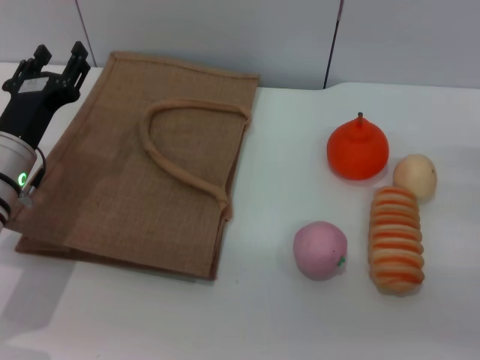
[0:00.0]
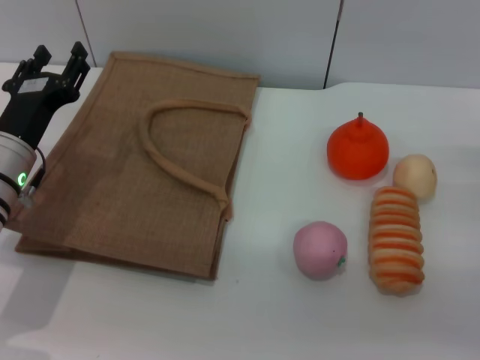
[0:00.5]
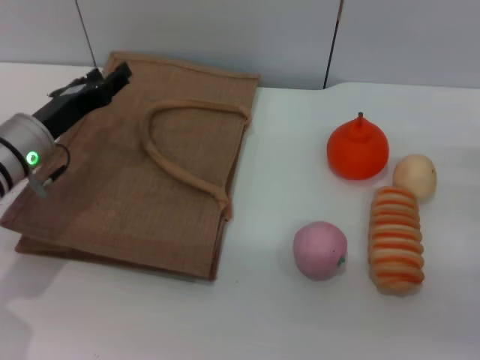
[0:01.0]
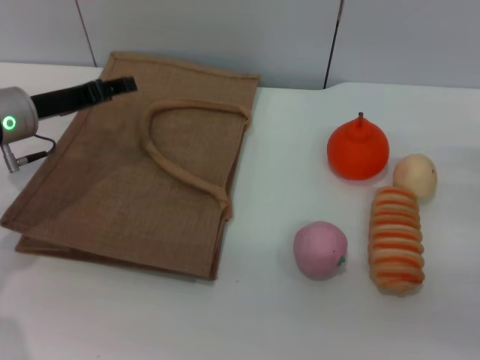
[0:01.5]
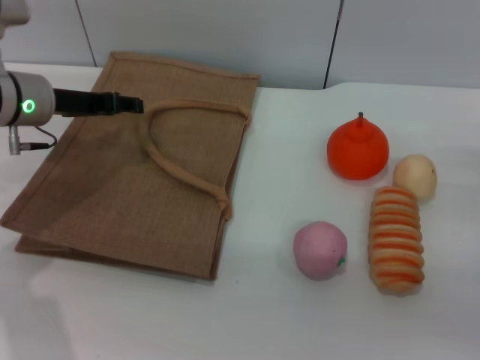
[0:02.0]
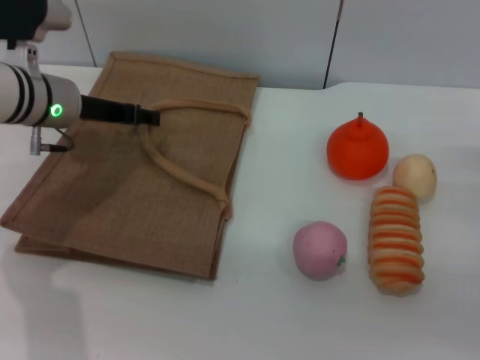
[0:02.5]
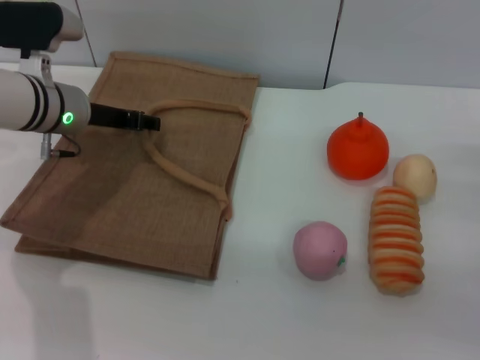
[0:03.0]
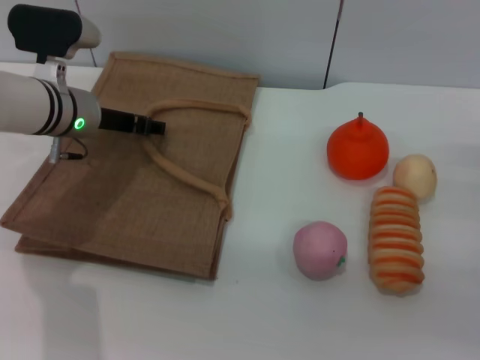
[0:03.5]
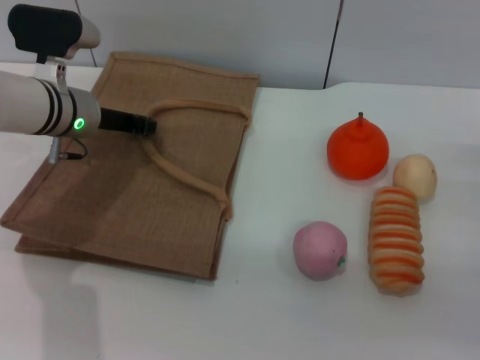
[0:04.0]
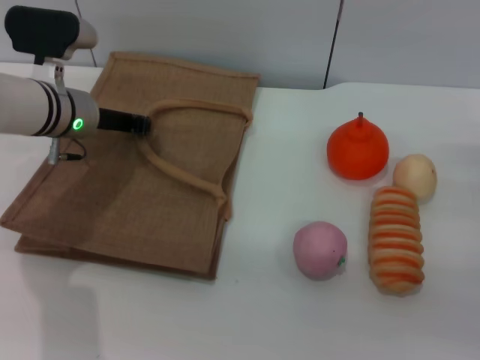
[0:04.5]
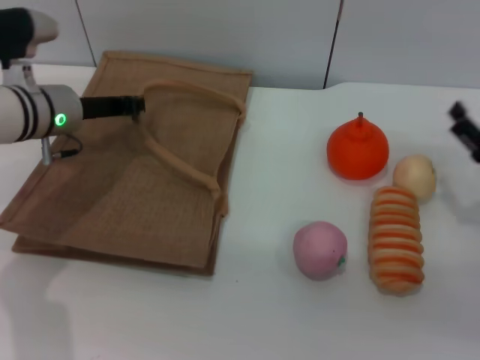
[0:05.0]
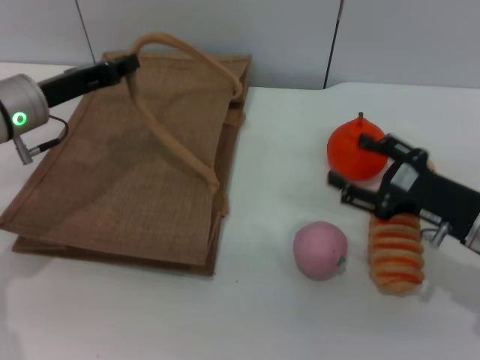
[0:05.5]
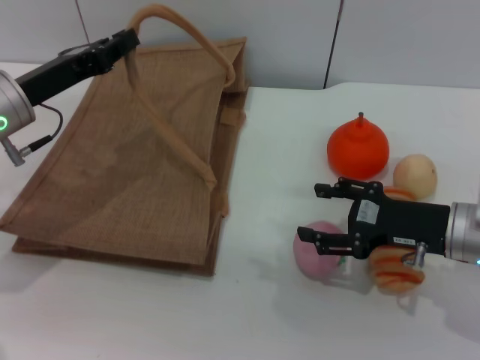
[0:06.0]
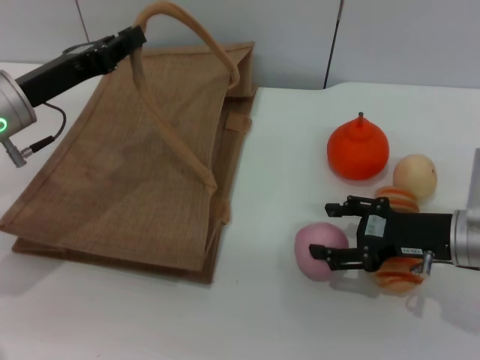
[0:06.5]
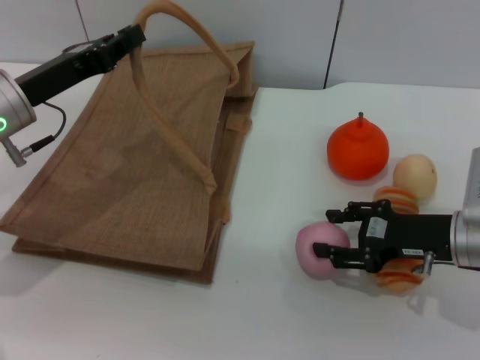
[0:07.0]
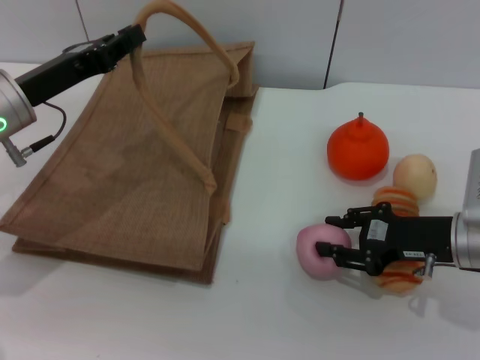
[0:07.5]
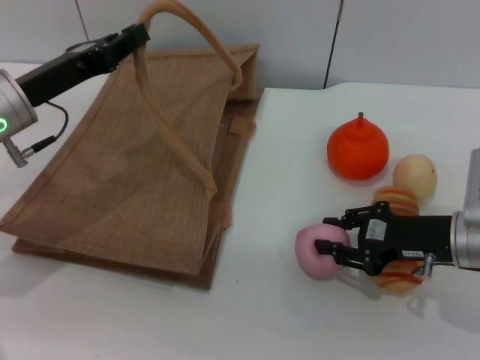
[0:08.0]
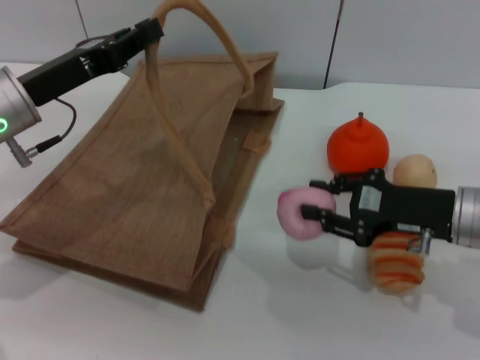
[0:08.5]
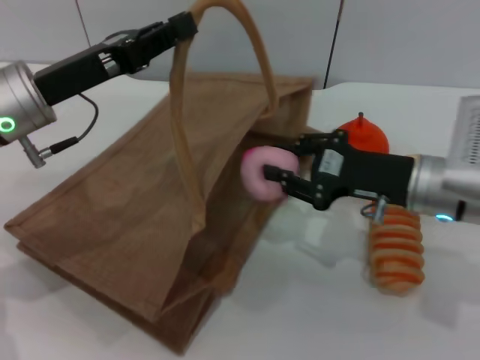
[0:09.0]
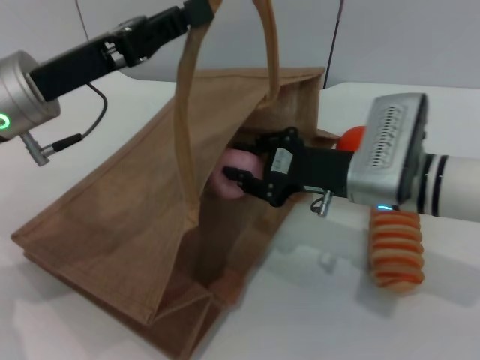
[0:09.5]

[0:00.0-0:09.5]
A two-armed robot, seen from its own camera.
Task of the whole recording: pick up the peach from the table and place it in the brown handbag.
Step, 0:00.0 to 0:05.0: Lift the woven bag with the left gripper to open it.
Step, 0:05.5 to 0:08.5: Pick up the peach with the right gripper.
0:00.0 to 0:02.0: The left gripper heads forward and upward, covering about 10 cm.
0:02.0 to 0:04.0: The left gripper changes place by approximately 5 cm.
0:04.0 to 0:05.5: The left gripper ends up approximately 5 cm from where it was, and closes. Meanwhile the right gripper is displaced to the left by approximately 10 cm.
0:05.5 to 0:07.5: The right gripper closes.
0:07.5 to 0:09.5: The right gripper moves to the left, roughly 10 cm; the left gripper ends up roughly 5 cm from where it was.

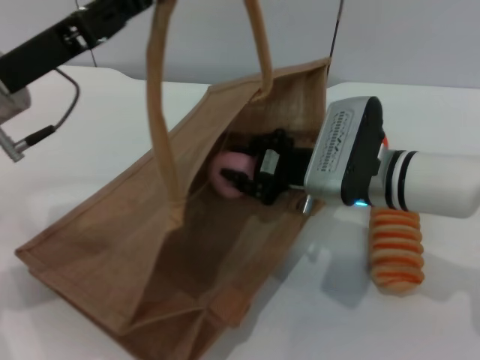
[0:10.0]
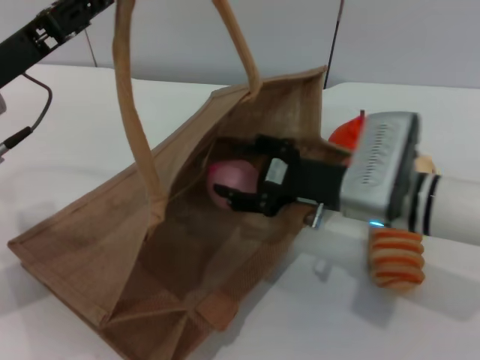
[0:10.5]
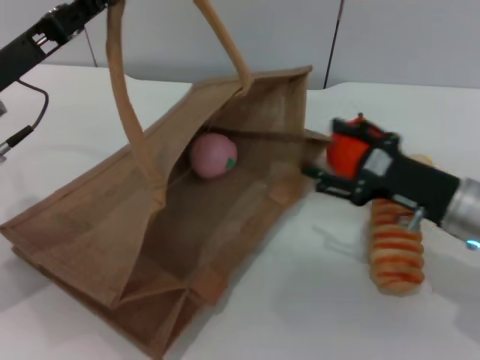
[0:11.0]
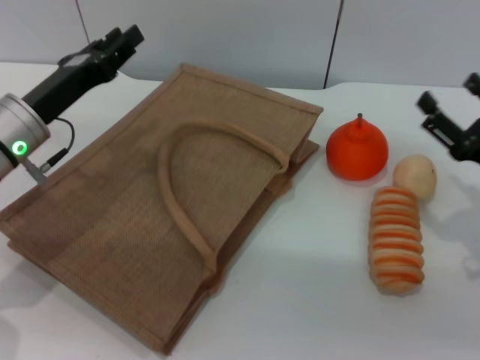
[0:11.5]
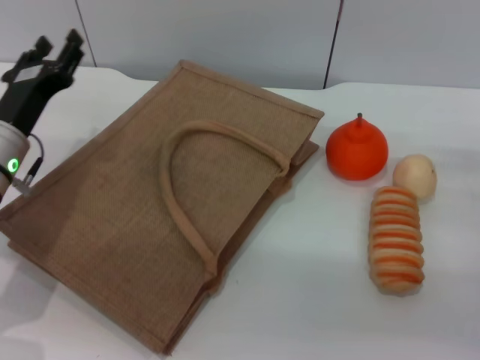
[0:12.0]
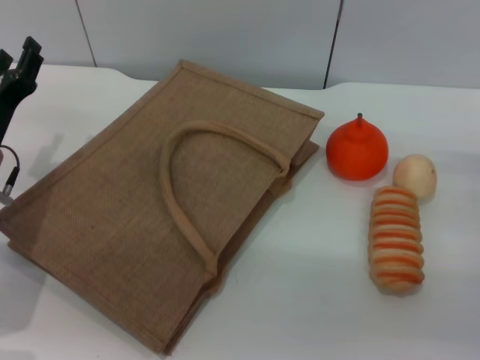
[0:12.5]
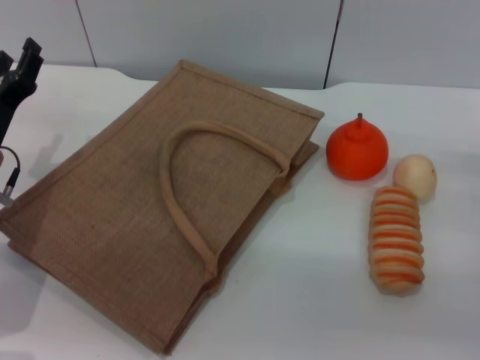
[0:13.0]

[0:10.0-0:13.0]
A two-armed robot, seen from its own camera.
Task of the whole recording: pick up the peach from the table and place it in the brown handbag.
Step, 0:11.0 to 0:11.5: Lower the woven bag with the left gripper to close it.
0:10.0 to 0:11.5: The left gripper heads downward, covering about 10 cm. Meanwhile the right gripper travels to the right and backward by approximately 20 cm, and opens.
0:11.5 to 0:13.0: The left gripper ends up approximately 5 cm from where it was, and opens.

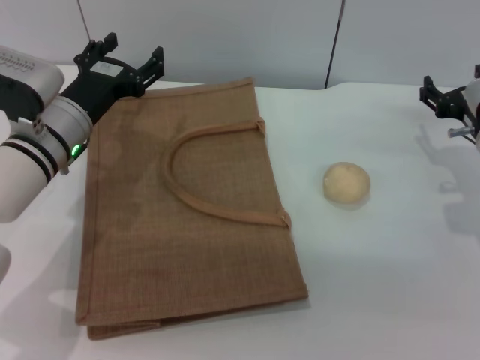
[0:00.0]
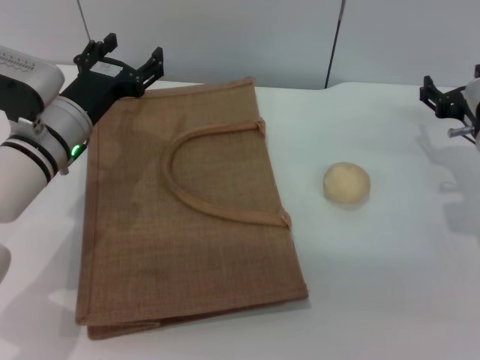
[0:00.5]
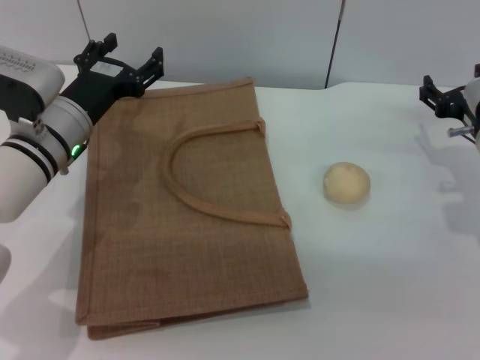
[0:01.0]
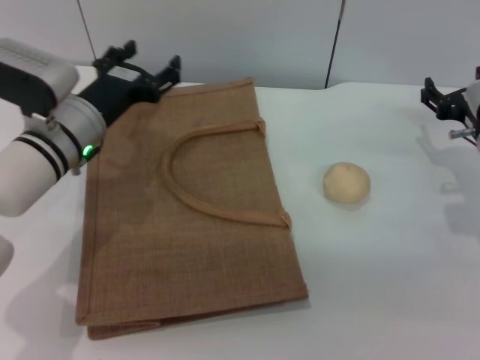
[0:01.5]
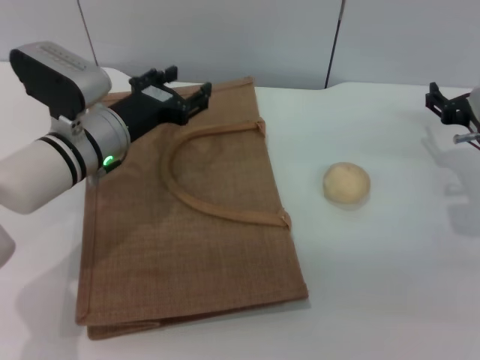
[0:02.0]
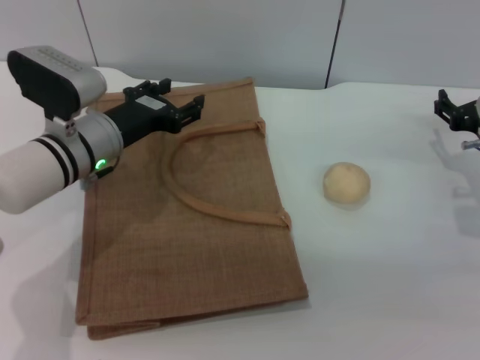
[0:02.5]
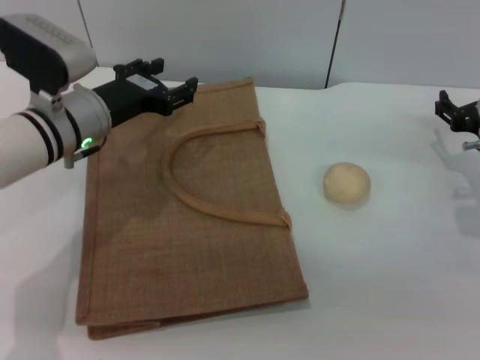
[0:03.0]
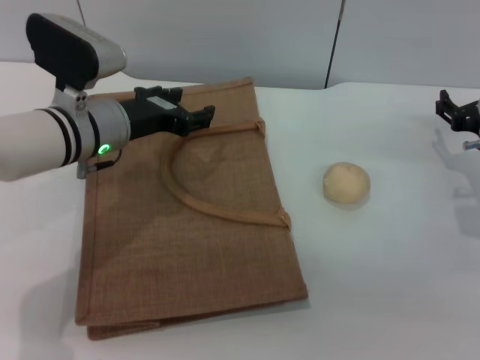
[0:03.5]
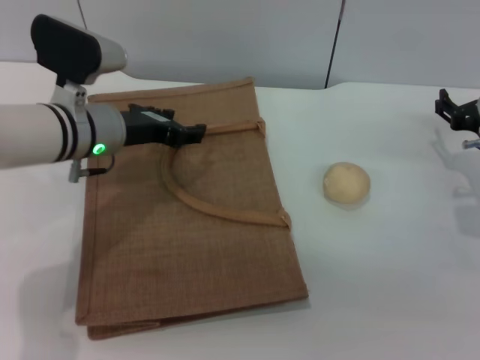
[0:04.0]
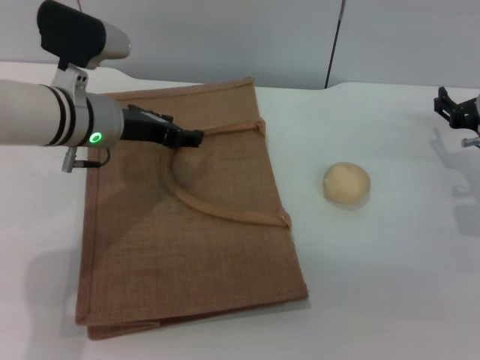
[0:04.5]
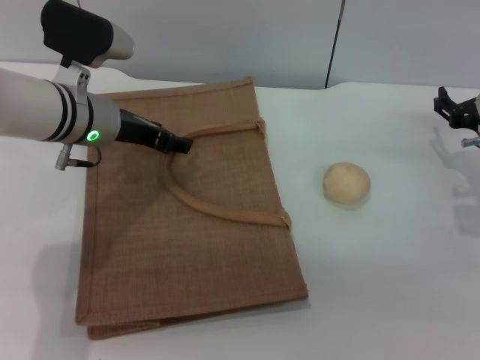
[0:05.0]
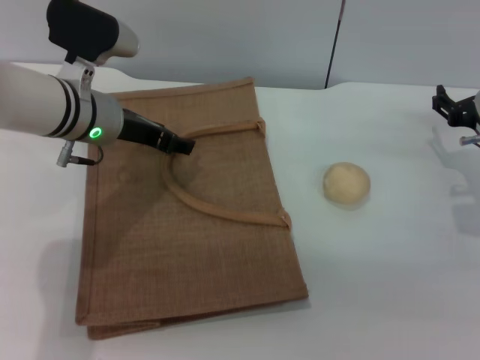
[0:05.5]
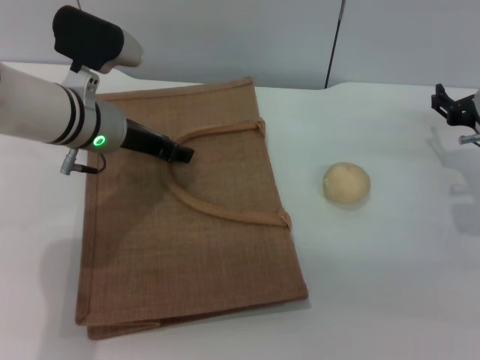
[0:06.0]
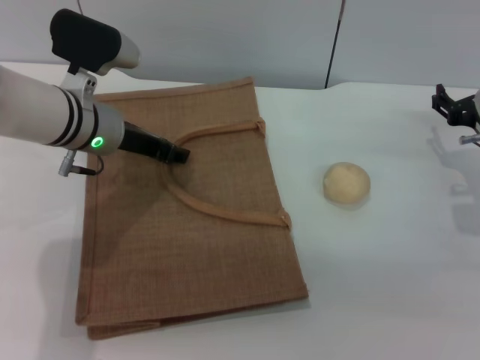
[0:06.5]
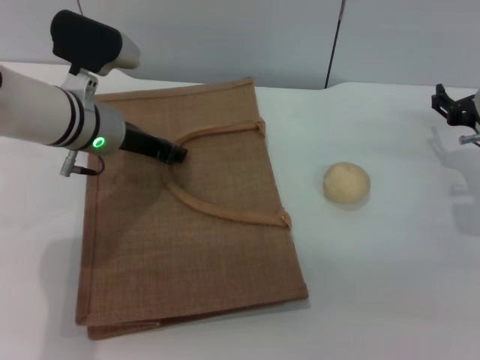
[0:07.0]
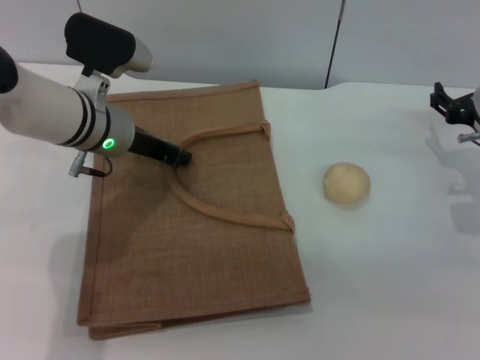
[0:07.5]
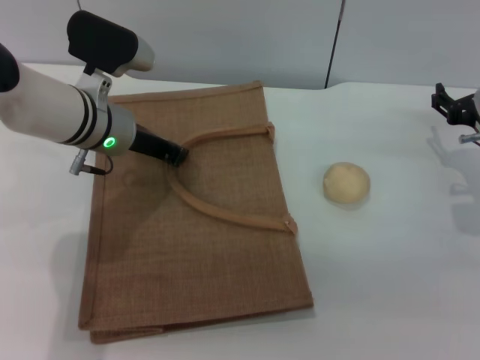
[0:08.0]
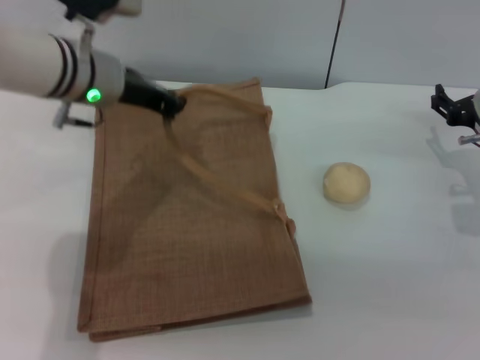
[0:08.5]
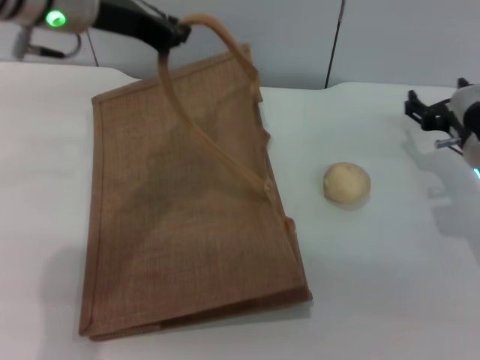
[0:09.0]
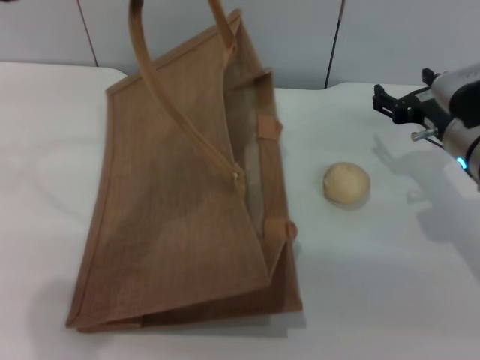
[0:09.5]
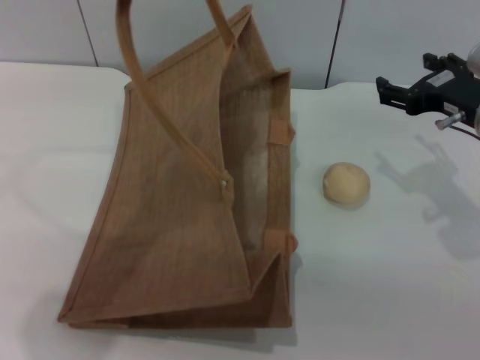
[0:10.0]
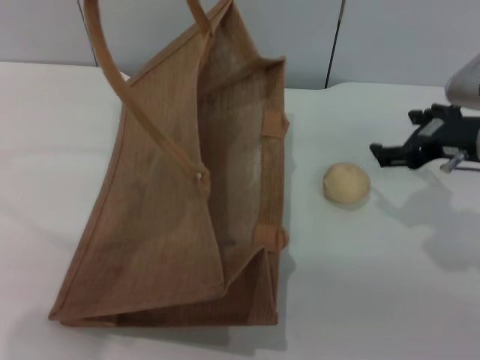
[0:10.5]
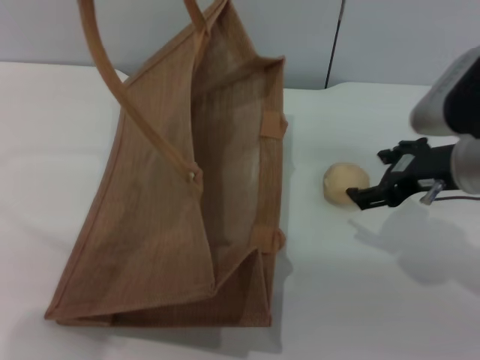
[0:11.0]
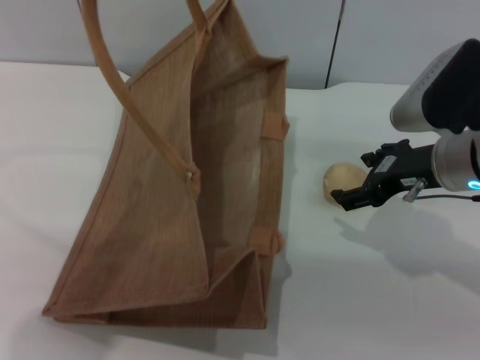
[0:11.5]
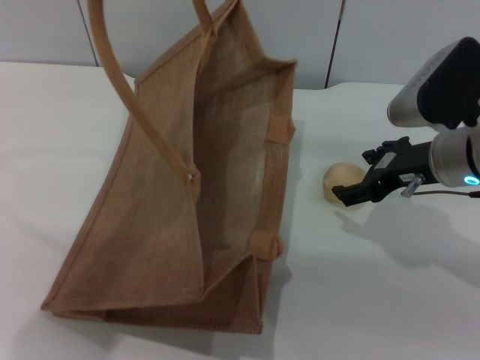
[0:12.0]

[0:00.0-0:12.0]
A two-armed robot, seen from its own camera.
Task of the whole recording: pick up the egg yolk pastry from the table and place it in the brown handbag.
Step, 0:00.0 to 0:08.5: Lift the woven bag with the left gripper to open it.
0:00.0 to 0:02.0: The grippers make only small movements.
0:04.0 to 0:06.0: The grippers stay close to where they were, moving slightly.
0:06.0 to 0:08.0: The left gripper closes up.
0:08.0 to 0:10.0: The right gripper shifts roughly 10 cm upward, while the left gripper heads upward, covering about 25 cm.
